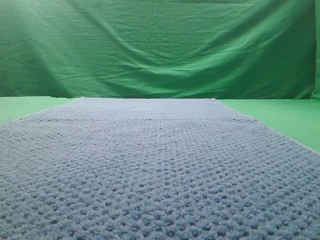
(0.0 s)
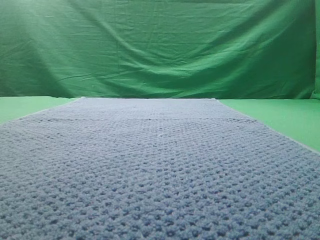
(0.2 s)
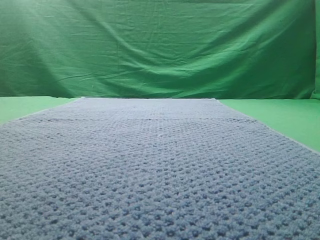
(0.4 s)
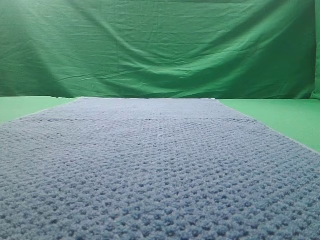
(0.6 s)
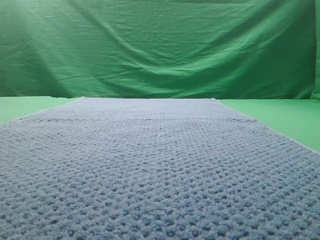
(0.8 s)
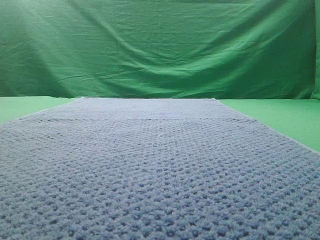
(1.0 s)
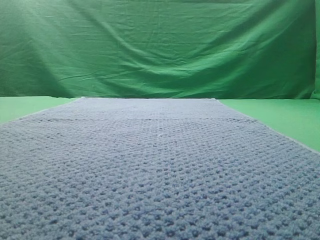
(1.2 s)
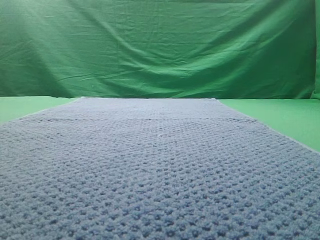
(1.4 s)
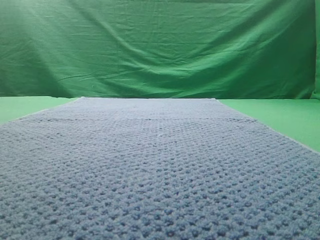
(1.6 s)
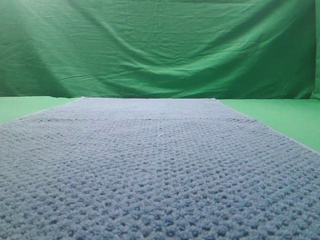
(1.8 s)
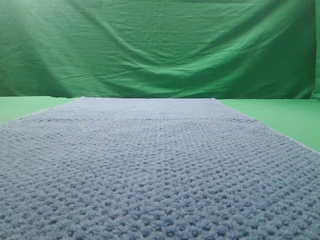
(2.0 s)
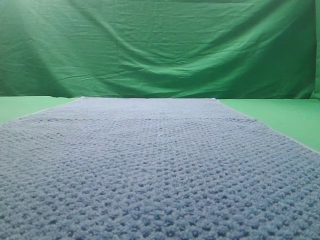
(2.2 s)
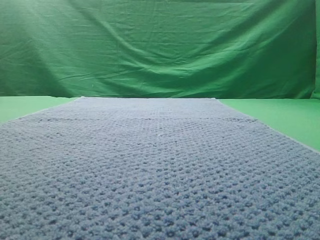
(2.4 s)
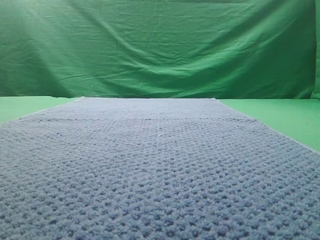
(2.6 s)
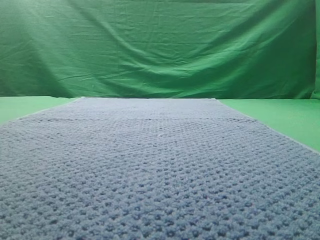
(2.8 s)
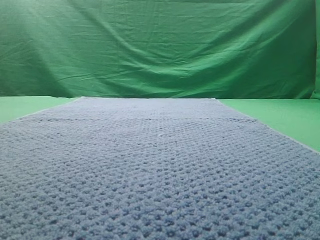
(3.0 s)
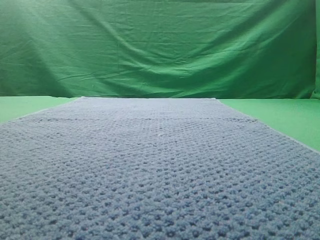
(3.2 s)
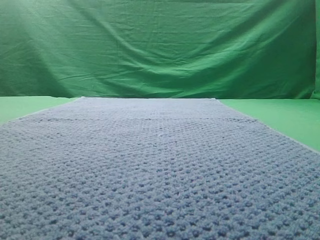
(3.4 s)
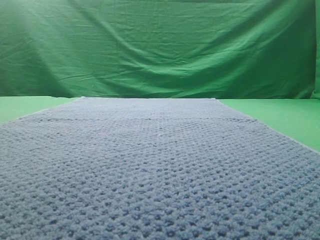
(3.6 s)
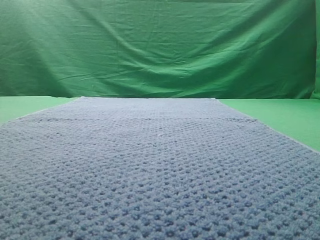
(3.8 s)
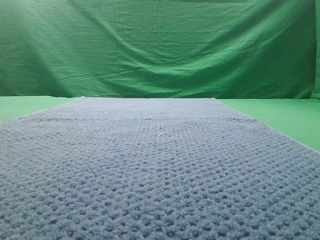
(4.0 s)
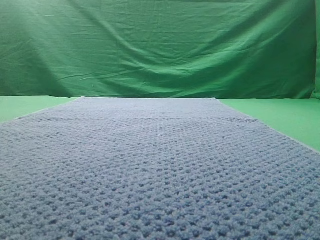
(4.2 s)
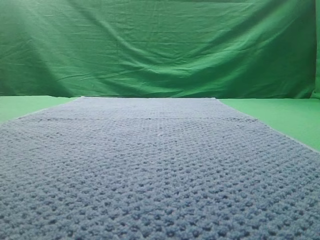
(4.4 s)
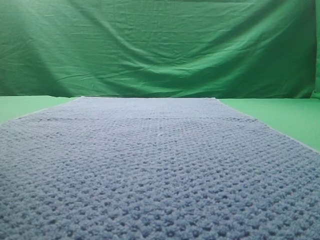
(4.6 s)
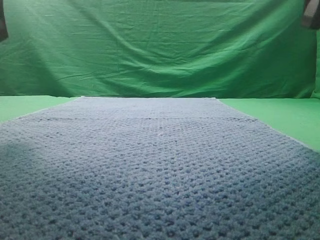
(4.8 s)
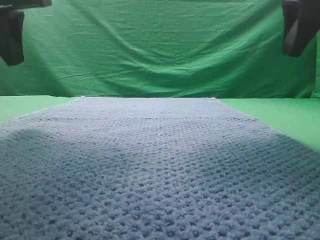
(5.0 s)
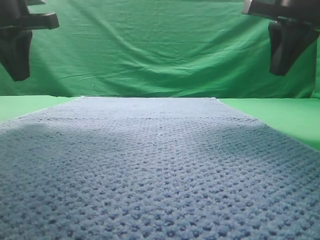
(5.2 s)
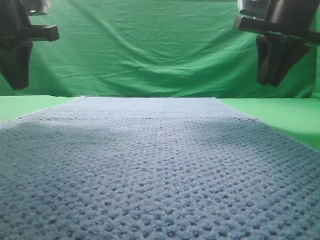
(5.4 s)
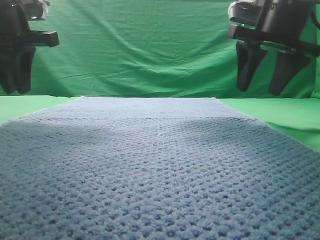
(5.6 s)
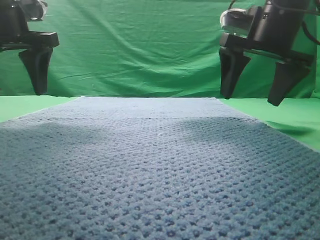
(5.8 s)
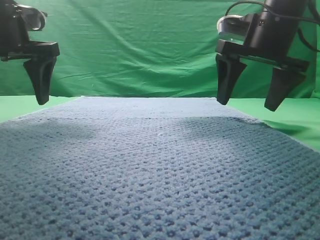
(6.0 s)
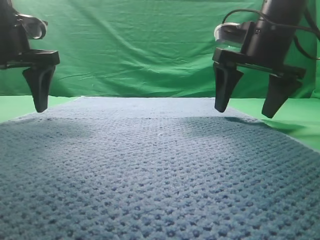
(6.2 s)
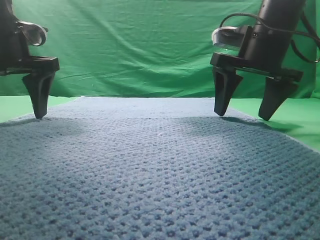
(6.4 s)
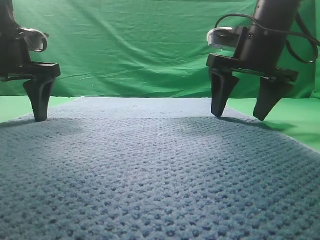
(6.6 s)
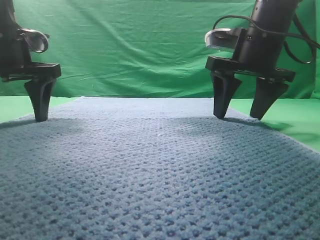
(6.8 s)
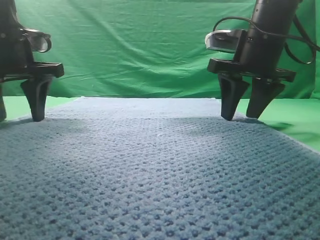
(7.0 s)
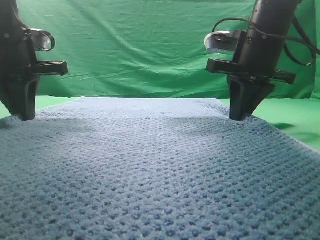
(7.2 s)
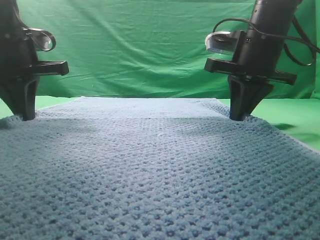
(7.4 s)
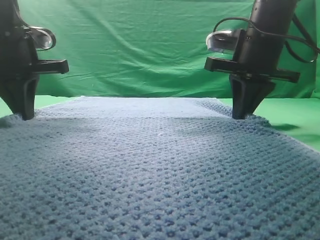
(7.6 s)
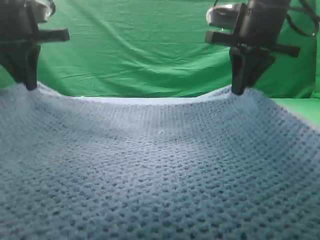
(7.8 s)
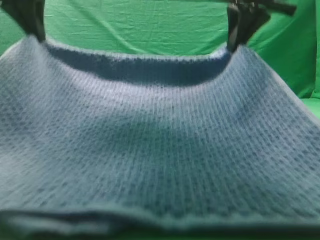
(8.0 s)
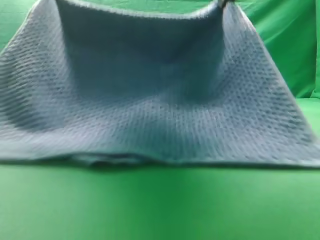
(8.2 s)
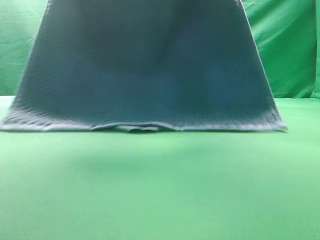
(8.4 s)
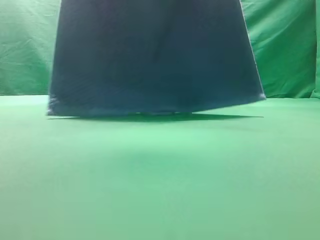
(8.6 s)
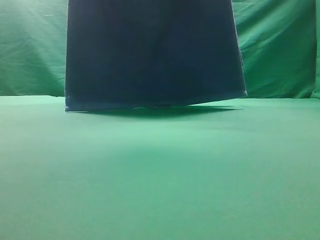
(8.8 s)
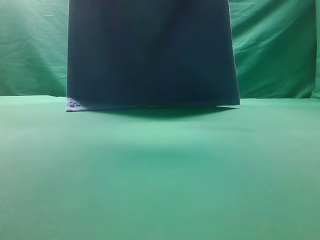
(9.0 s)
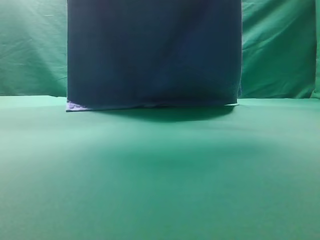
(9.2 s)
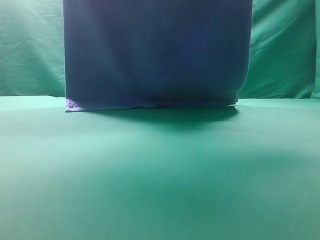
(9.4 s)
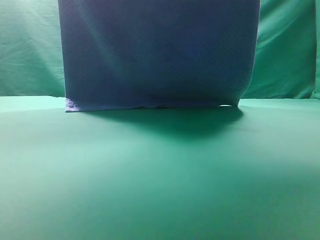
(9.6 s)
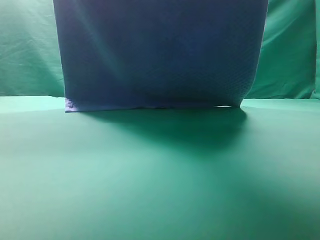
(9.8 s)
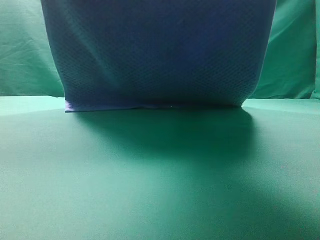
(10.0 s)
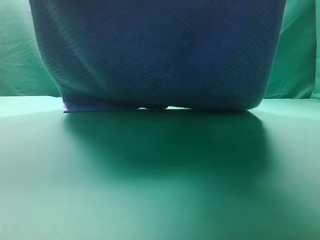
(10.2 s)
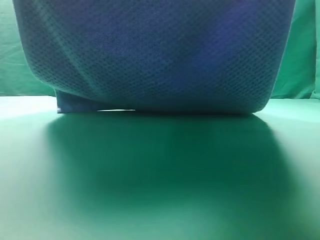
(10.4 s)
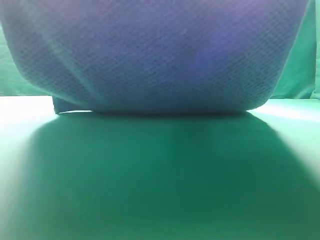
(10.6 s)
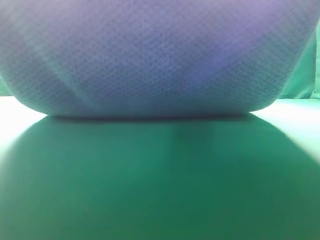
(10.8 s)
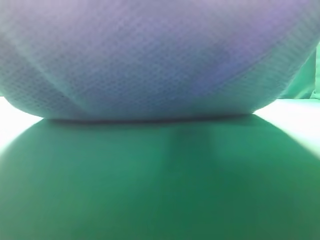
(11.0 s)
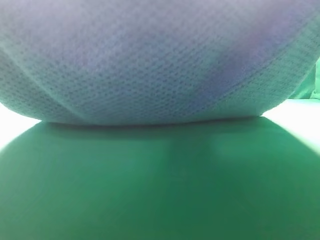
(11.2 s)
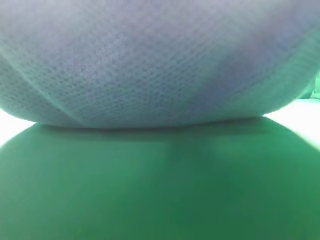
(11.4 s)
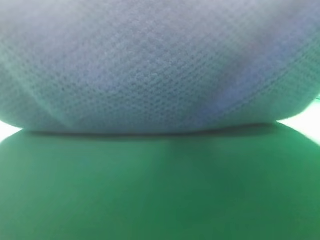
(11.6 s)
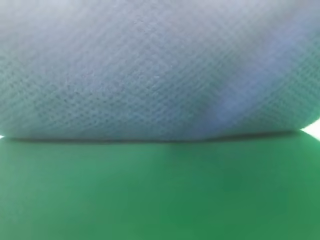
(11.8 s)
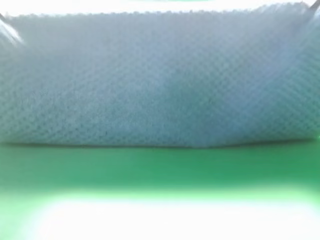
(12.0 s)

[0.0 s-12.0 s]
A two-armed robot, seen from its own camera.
Task of the whole recording: fold the towel on the table twice.
Step, 0.0 to 8.6 s: pick up the towel with two arm.

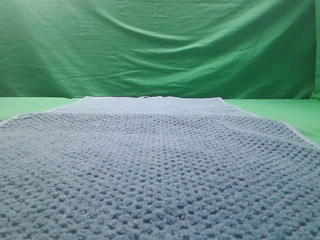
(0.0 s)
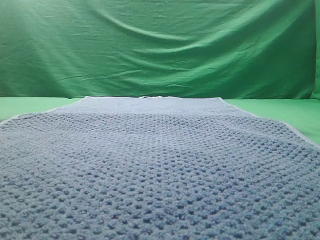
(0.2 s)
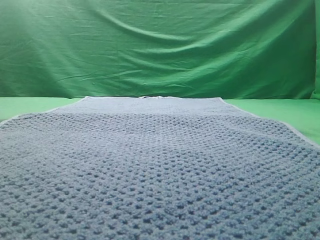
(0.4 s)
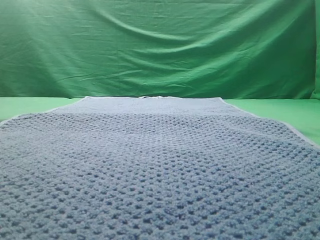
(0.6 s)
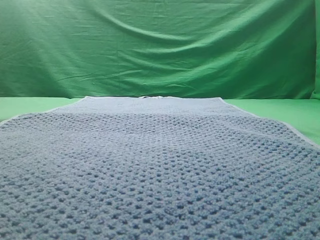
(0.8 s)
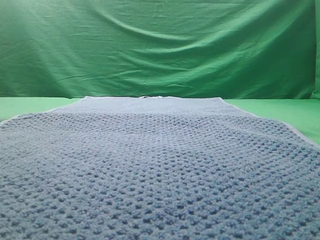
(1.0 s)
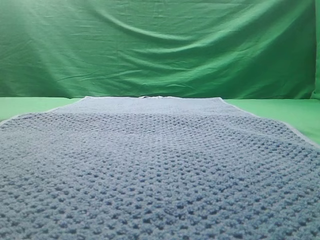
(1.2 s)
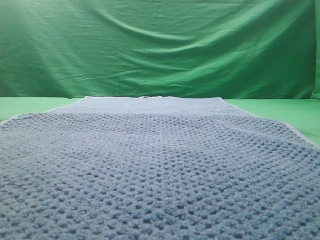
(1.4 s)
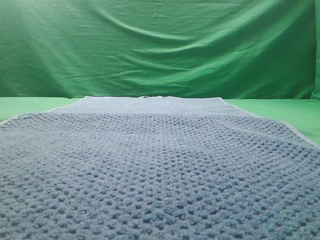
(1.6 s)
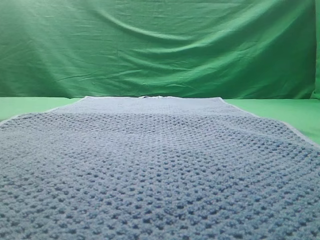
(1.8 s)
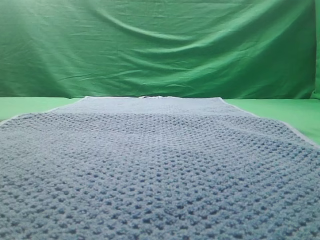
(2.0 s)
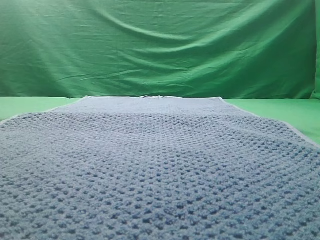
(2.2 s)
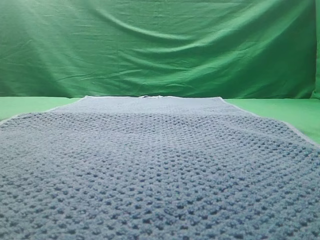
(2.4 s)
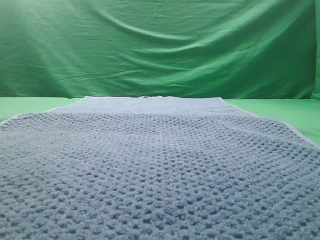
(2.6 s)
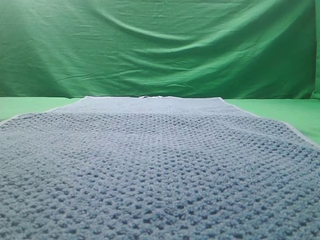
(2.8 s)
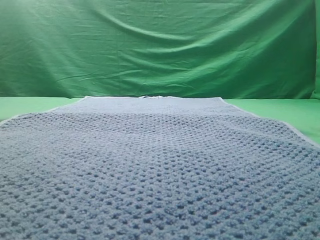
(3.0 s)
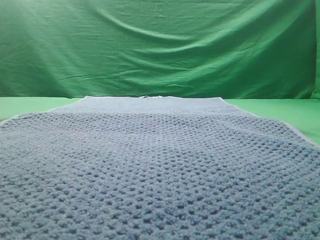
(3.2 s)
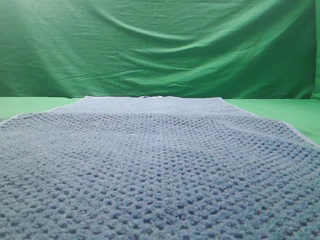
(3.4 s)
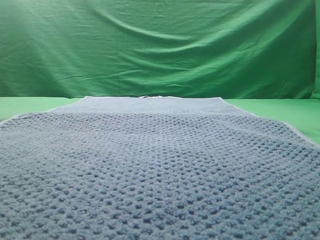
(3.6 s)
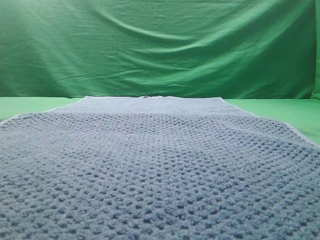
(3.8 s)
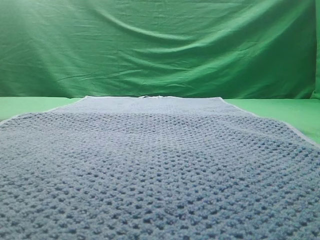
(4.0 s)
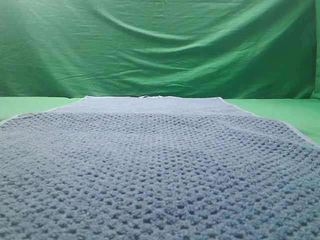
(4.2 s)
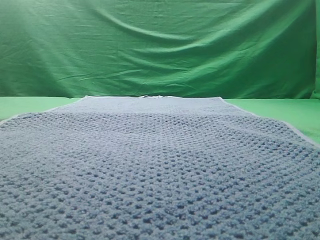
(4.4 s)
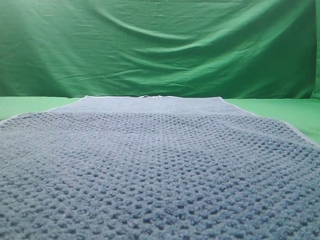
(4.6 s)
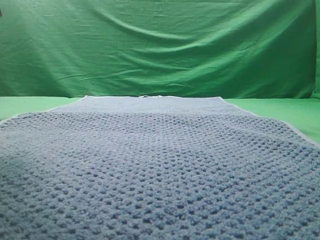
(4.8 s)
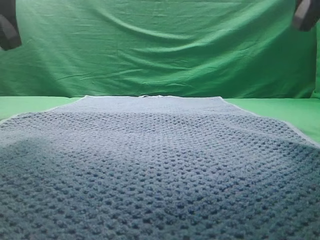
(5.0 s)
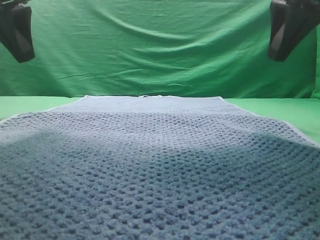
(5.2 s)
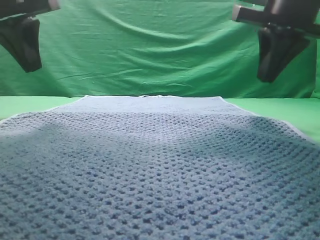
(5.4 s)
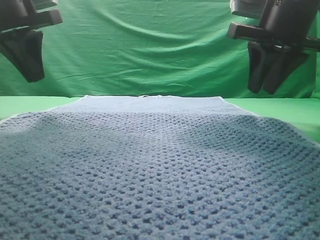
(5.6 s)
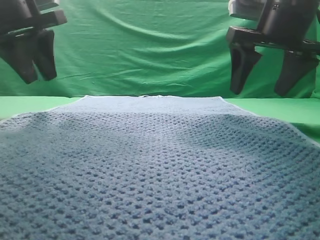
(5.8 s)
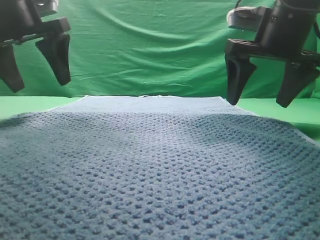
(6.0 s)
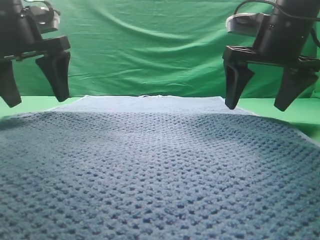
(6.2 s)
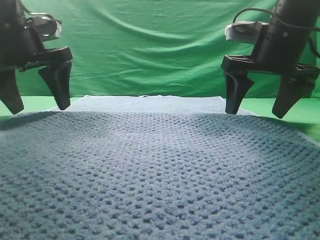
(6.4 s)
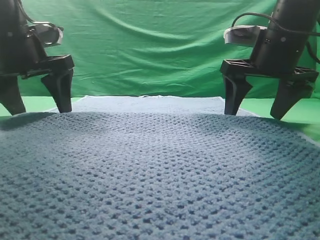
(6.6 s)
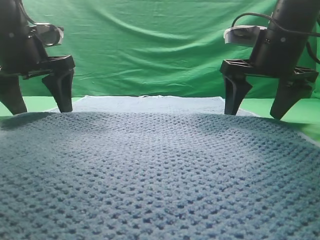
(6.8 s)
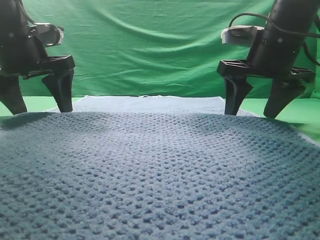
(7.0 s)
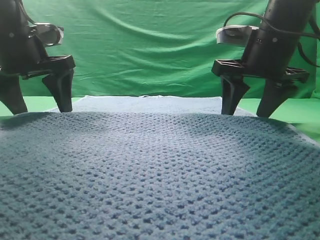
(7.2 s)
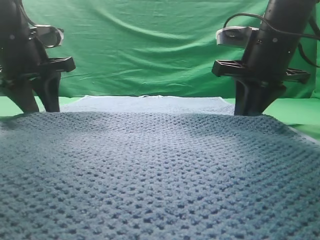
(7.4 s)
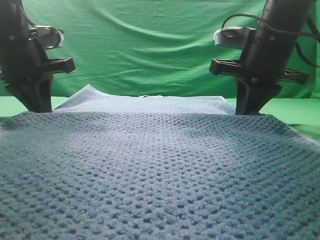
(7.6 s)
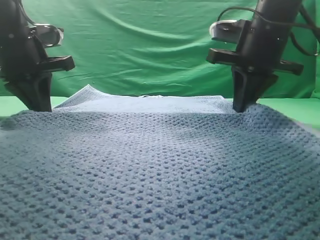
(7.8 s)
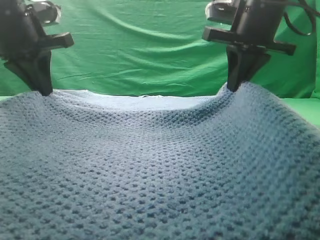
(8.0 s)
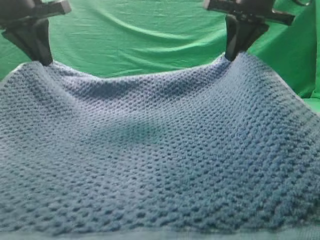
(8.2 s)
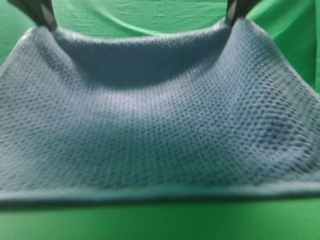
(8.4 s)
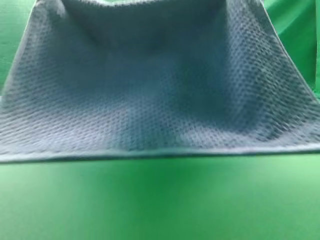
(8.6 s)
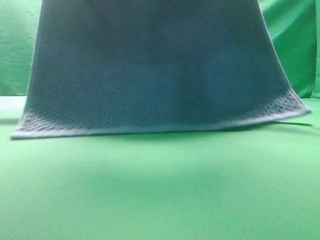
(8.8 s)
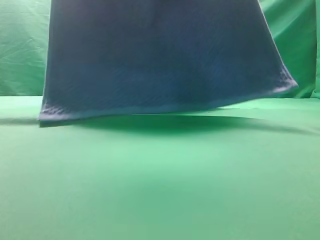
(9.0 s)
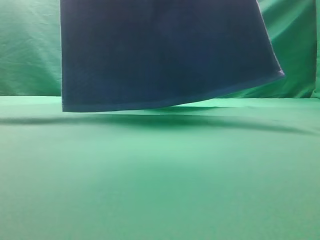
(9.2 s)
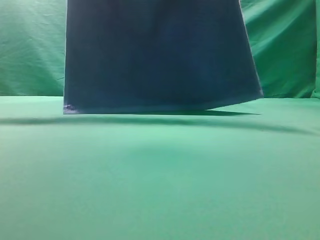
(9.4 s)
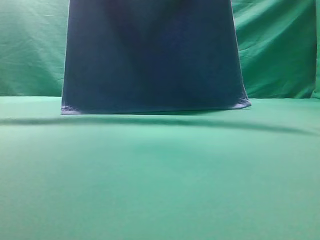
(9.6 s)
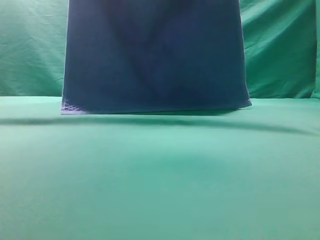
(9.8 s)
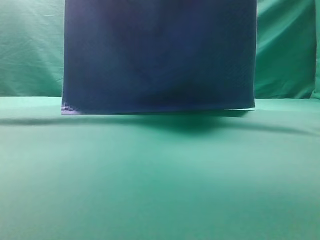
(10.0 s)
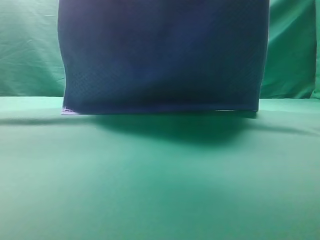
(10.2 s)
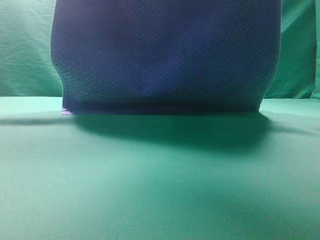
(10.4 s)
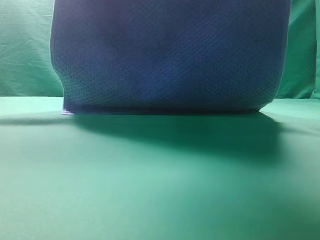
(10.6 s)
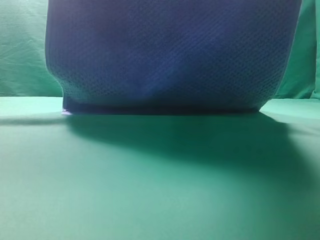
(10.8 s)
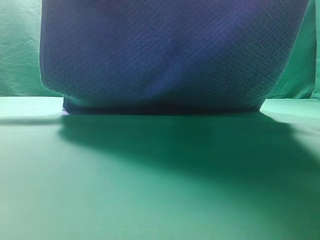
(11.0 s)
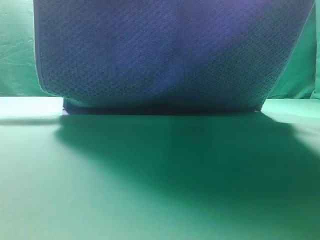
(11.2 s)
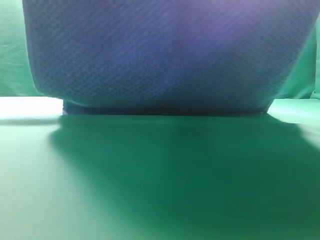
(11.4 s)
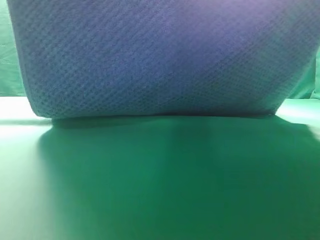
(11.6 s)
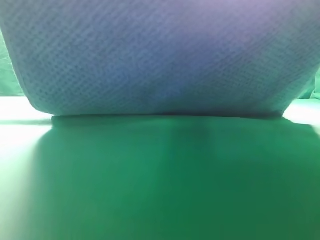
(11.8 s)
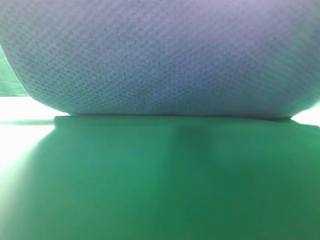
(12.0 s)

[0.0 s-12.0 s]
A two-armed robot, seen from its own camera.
Task of the whole recording: fold the towel on the table twice.
Step, 0.0 to 9.0 s: pick up the towel with two arm.
